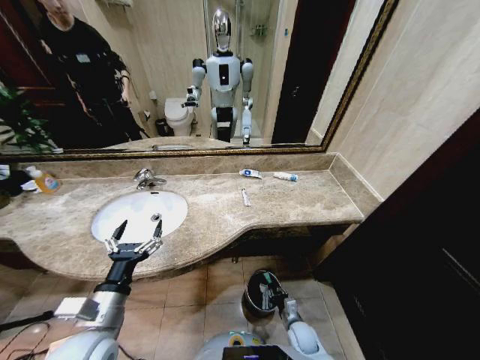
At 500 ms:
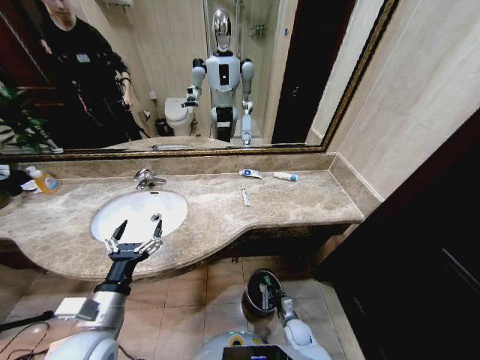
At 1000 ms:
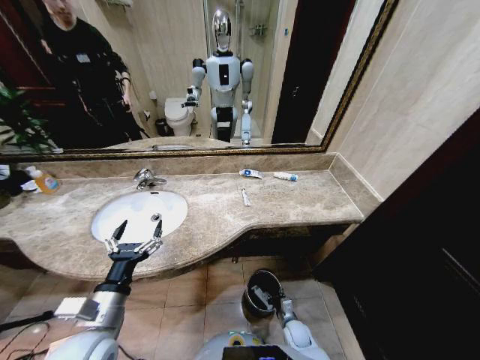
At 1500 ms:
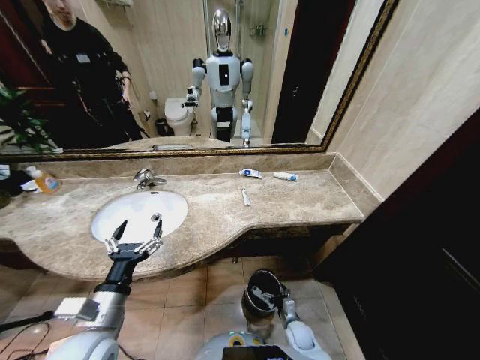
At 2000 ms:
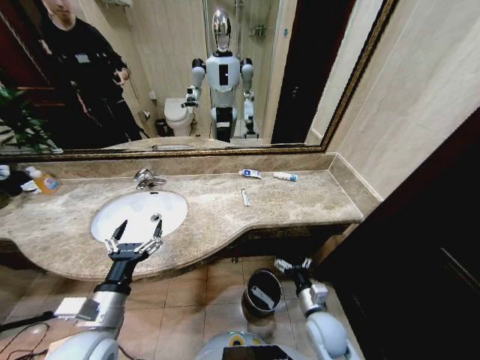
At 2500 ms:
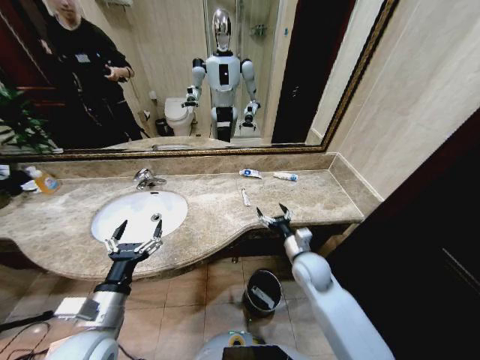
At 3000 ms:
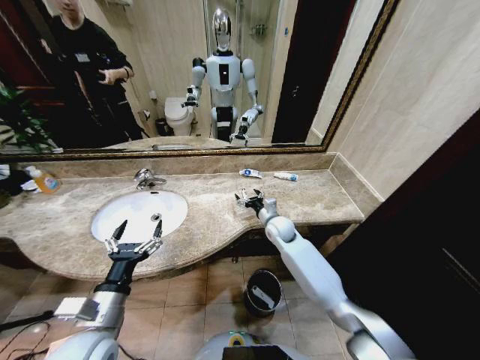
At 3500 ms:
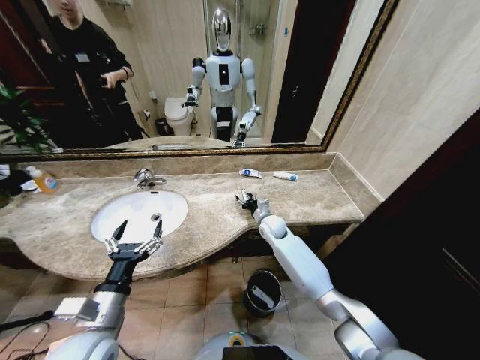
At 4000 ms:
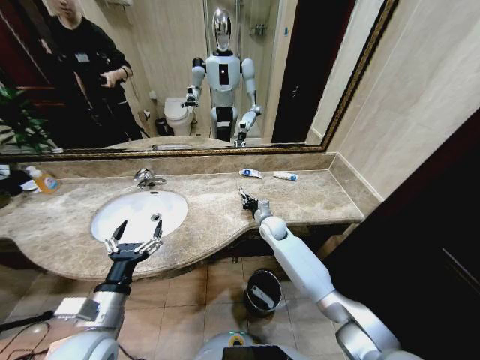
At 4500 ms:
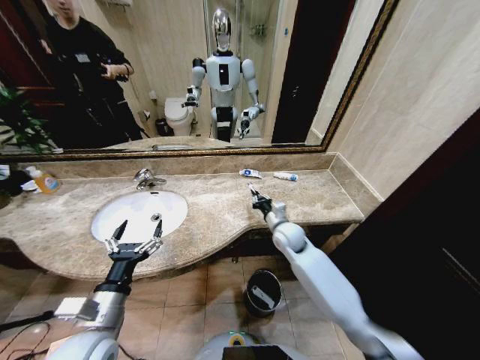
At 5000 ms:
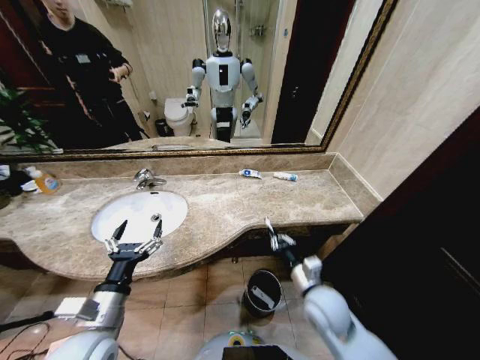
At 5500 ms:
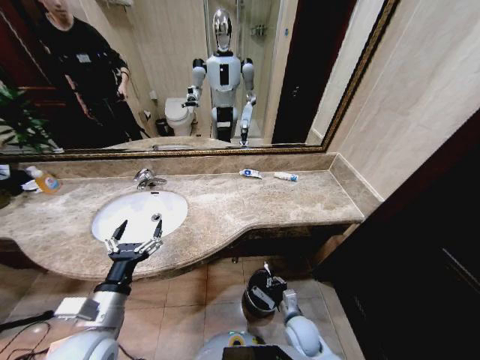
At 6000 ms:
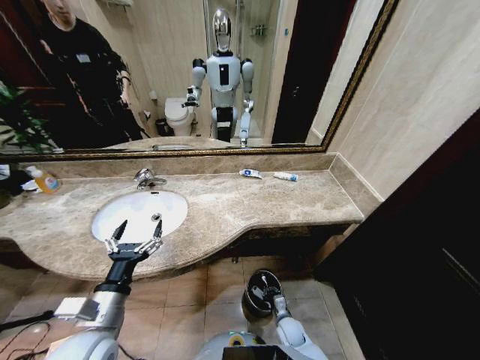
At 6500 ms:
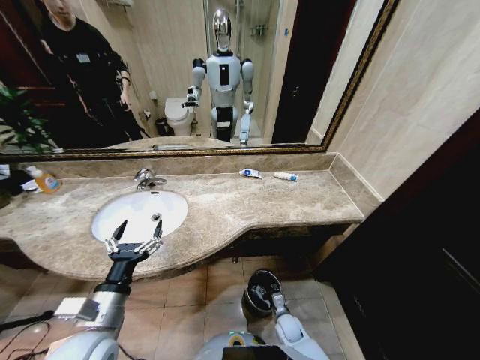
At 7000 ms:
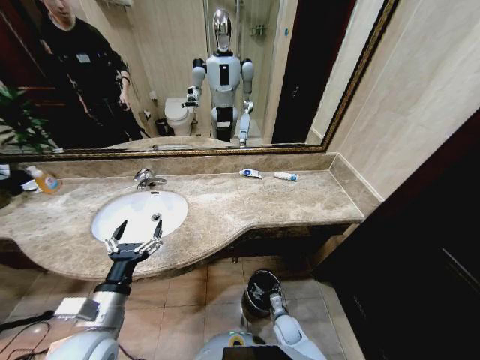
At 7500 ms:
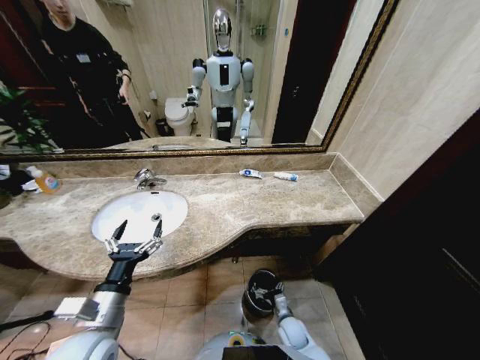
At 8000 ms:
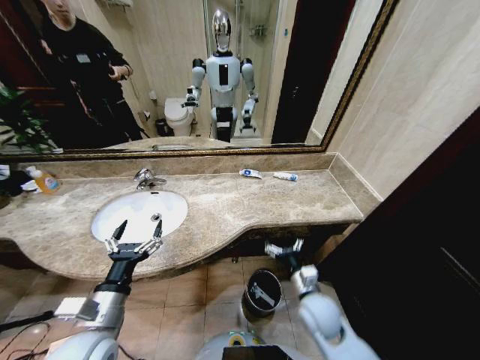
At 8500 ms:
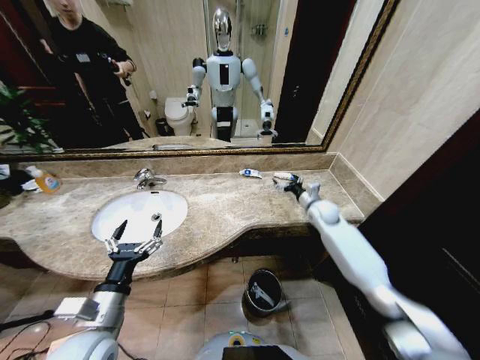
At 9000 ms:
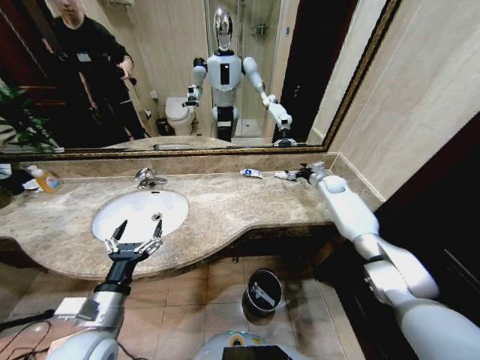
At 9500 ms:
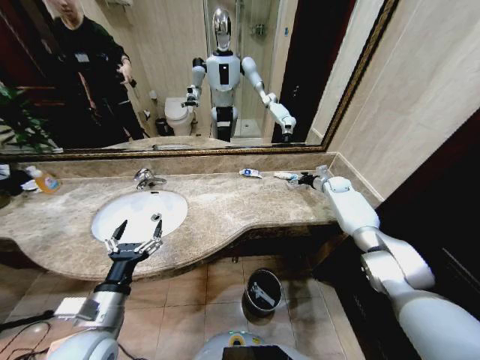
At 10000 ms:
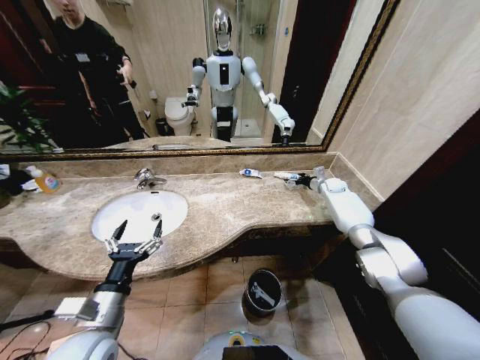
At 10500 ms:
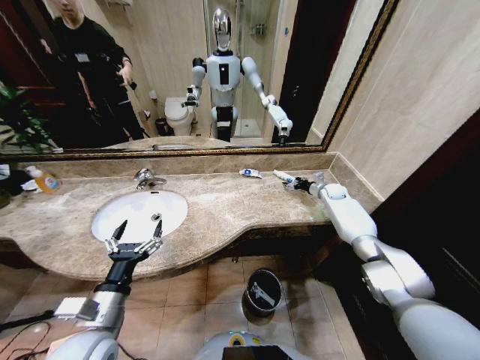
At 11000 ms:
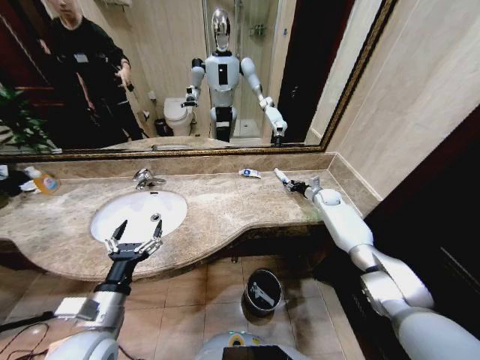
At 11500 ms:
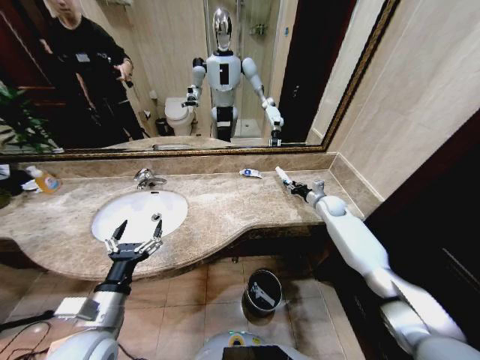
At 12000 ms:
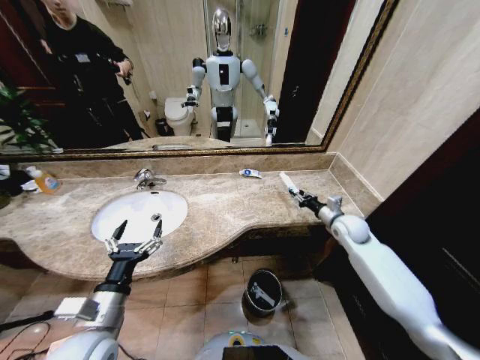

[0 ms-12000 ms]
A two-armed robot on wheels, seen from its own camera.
Task of the whole recording: Pick up the trash from the sink and place it in the trash bin.
0 ms to 2000 ms: The right gripper is displaced upward by roughly 15 cm, and opens up.
2000 ms to 4000 ms: The right gripper shifts about 30 cm forward, and closes its fingers.
4000 ms to 6000 ms: The right gripper moves backward and downward, some 35 cm.
6000 ms to 8000 ms: The right gripper heads upward, covering some 25 cm, and opens its fingers.
8000 ms to 10000 ms: The right gripper heads forward and to the right, covering approximately 50 cm.
10000 ms to 12000 ms: The right gripper travels backward by some 25 cm, and closes.

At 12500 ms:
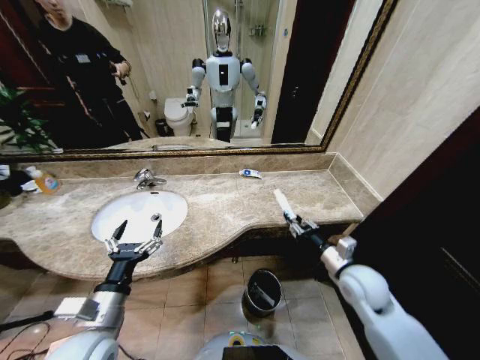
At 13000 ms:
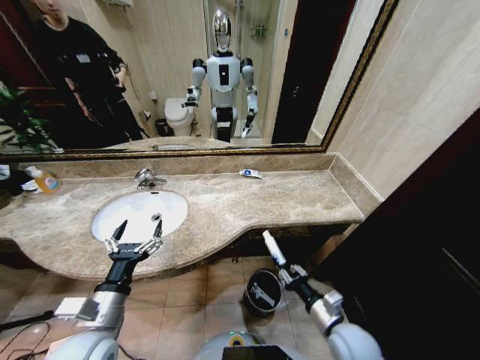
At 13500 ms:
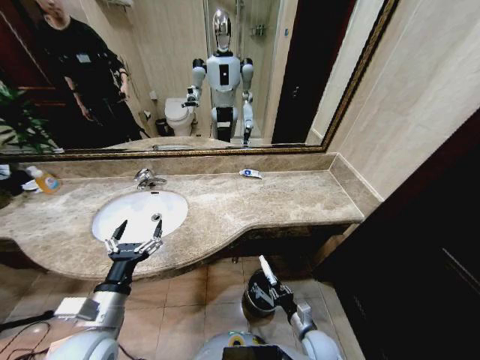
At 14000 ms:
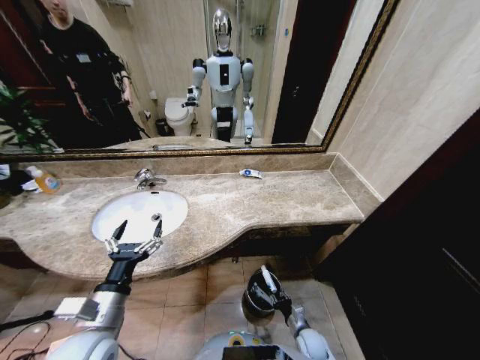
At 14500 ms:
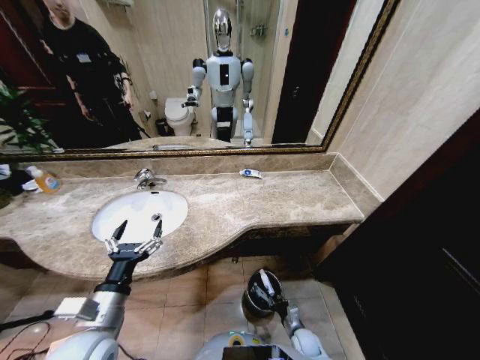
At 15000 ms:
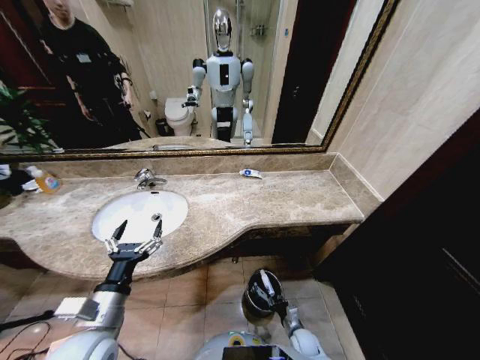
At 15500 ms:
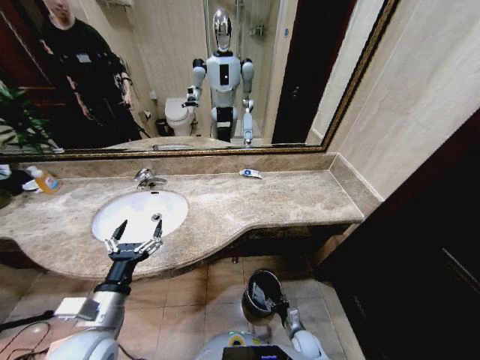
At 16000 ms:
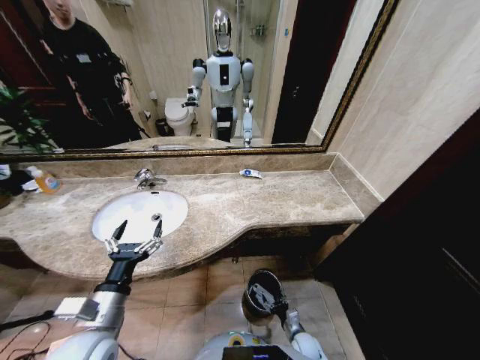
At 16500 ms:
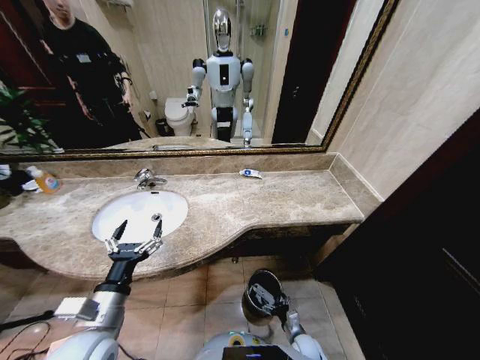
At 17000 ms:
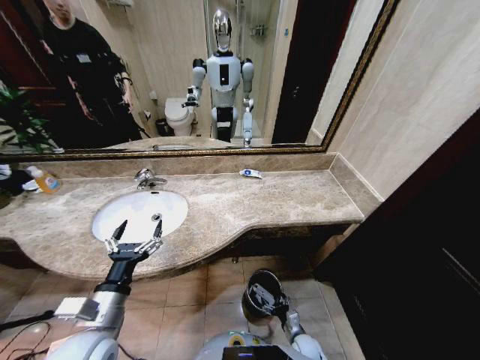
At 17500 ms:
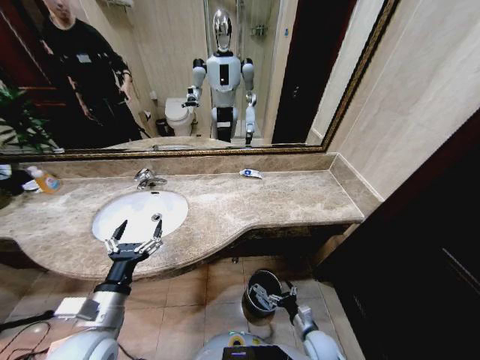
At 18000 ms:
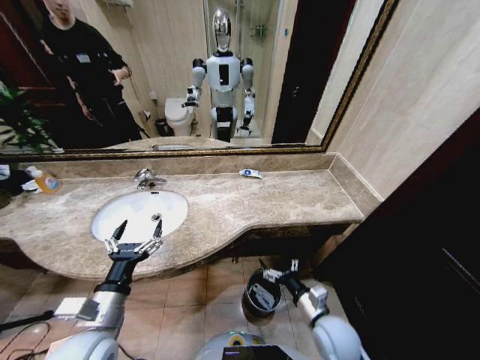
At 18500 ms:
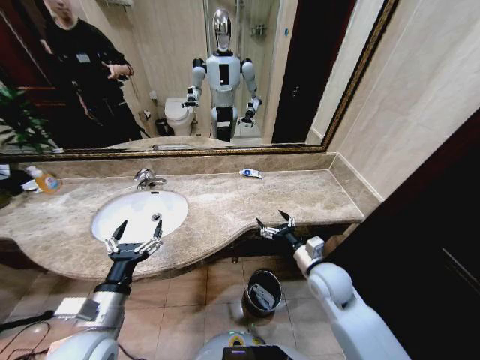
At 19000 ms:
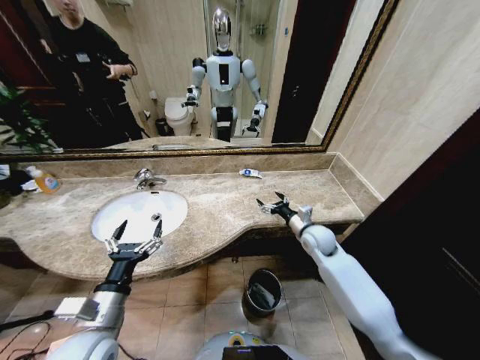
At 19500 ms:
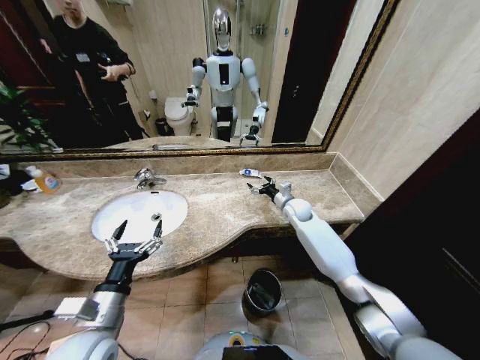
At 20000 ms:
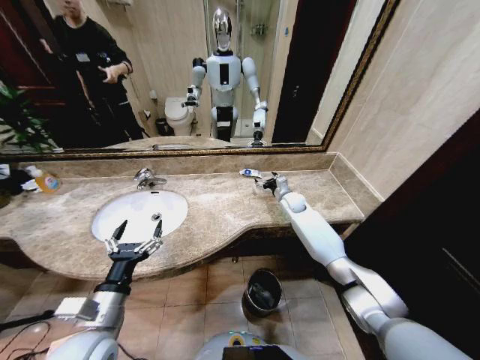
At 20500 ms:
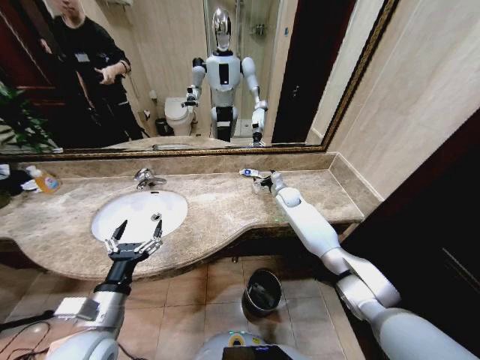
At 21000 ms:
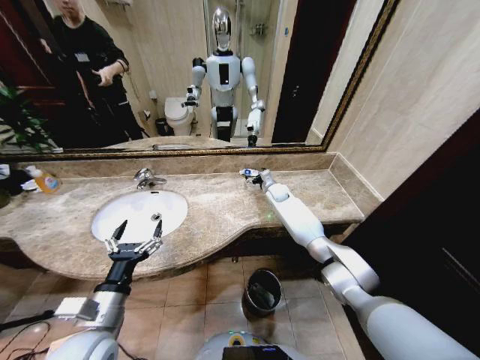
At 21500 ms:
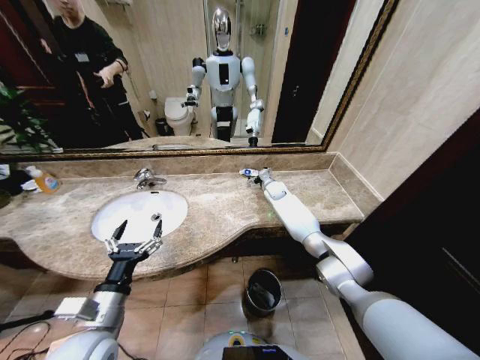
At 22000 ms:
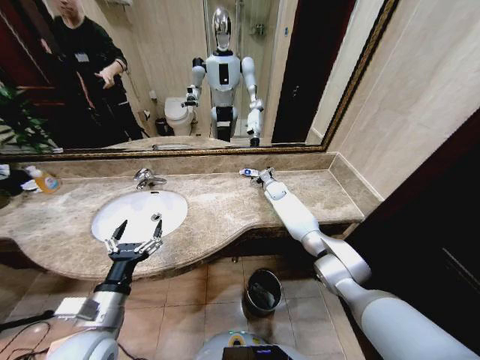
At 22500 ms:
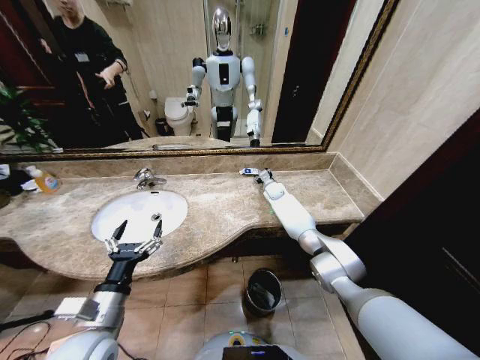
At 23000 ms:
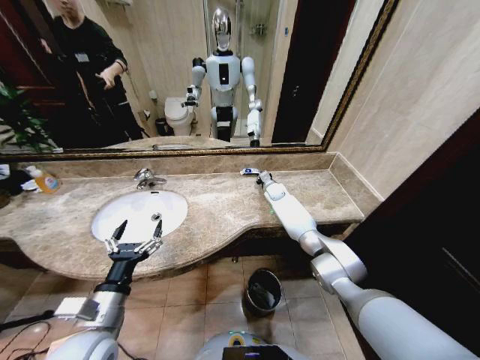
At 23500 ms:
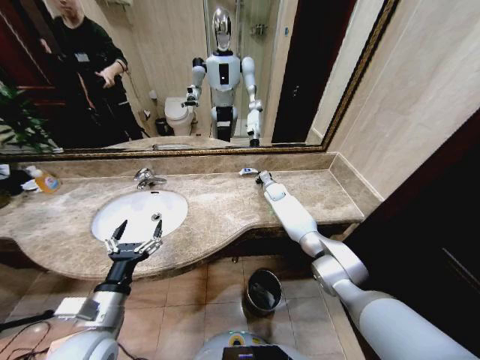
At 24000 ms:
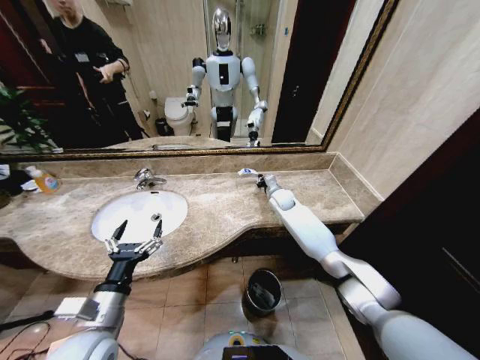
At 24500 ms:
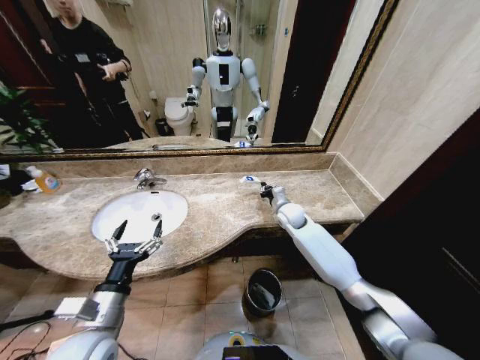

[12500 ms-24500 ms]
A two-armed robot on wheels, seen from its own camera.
Task of the whole recording: Pick up the trash from the sink and place it in the trash bin.
12500 ms to 14500 ms: The right gripper is displaced downward by roughly 35 cm.
14500 ms to 16500 ms: The right gripper opens.
16500 ms to 18500 ms: The right gripper travels upward by about 35 cm.
18500 ms to 20500 ms: The right gripper shifts about 30 cm forward.
20500 ms to 22500 ms: The right gripper travels forward by about 5 cm.
22500 ms to 24500 ms: The right gripper travels backward by some 15 cm, and closes.

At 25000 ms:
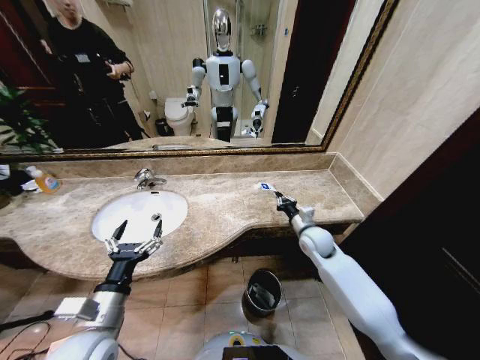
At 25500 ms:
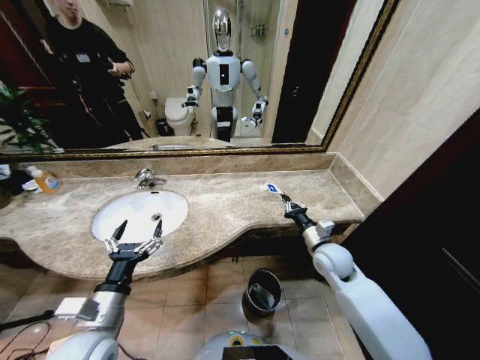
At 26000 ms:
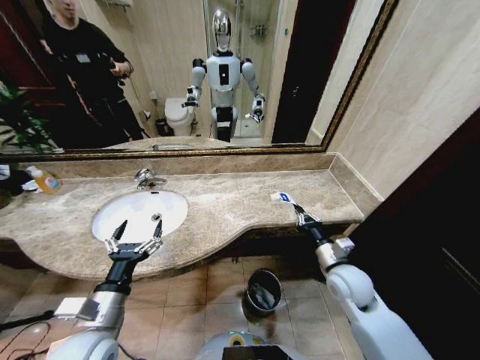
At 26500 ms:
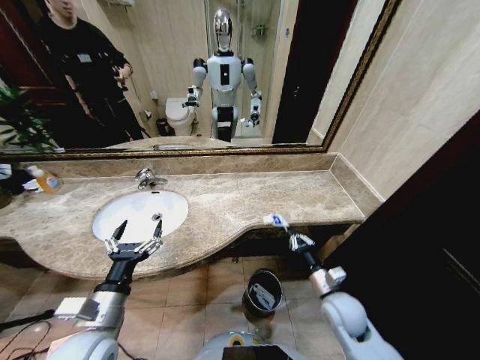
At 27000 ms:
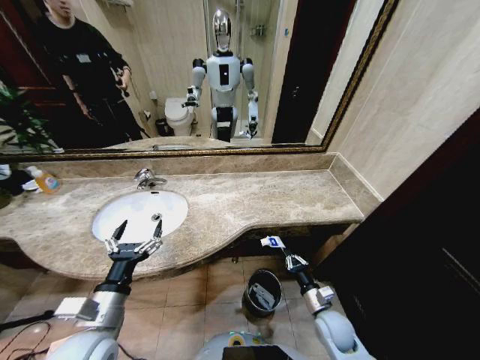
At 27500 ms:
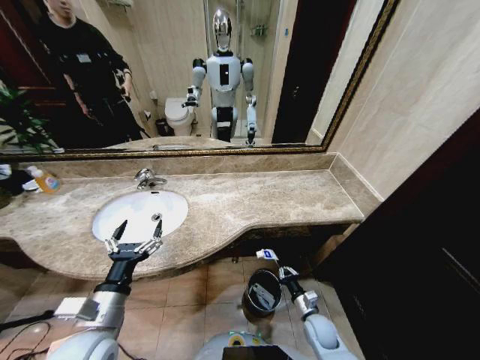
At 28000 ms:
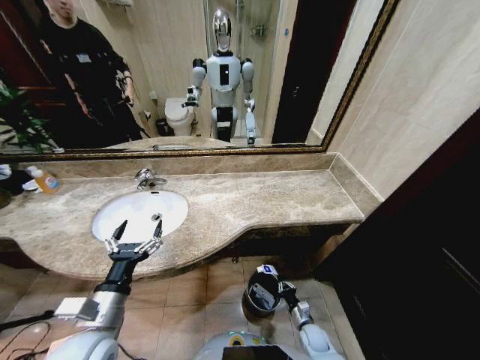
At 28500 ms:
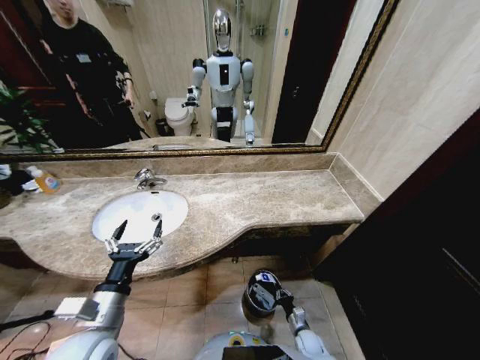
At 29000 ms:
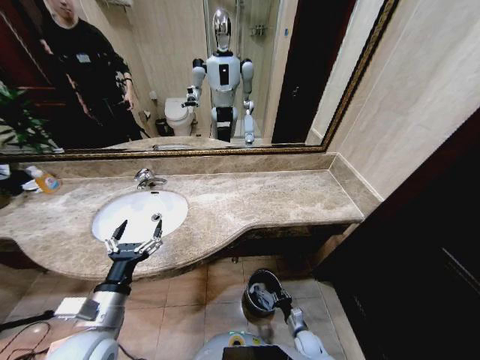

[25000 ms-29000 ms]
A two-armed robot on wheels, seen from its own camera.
Task of the whole recording: Pick up the trash from the sink and place it in the trash bin.
25000 ms to 27000 ms: The right gripper is displaced backward and downward by some 25 cm.
27000 ms to 29000 ms: The right gripper travels downward by about 20 cm.
